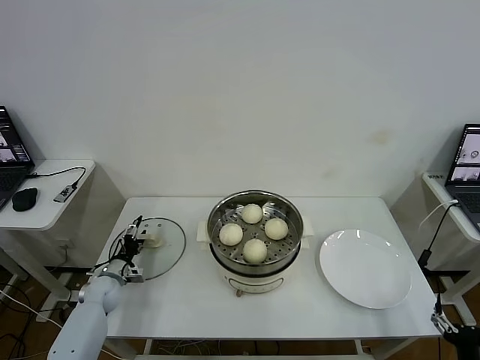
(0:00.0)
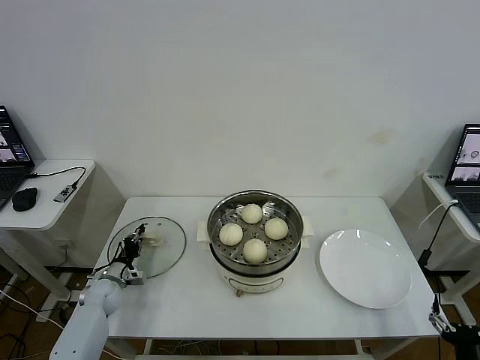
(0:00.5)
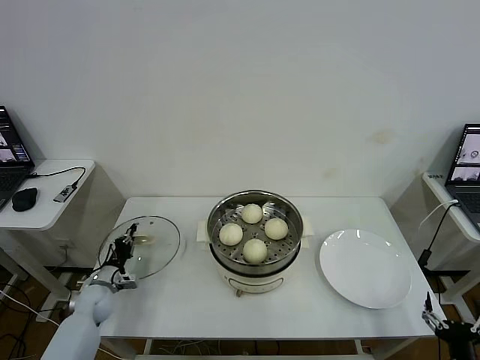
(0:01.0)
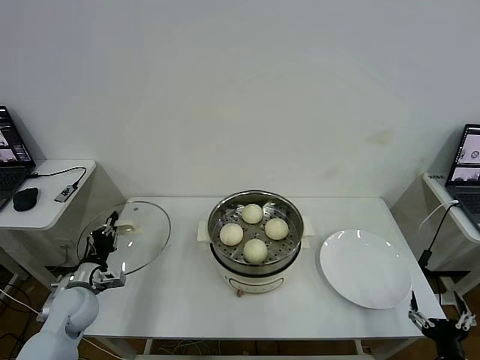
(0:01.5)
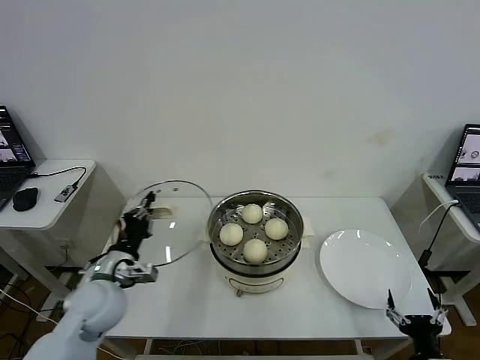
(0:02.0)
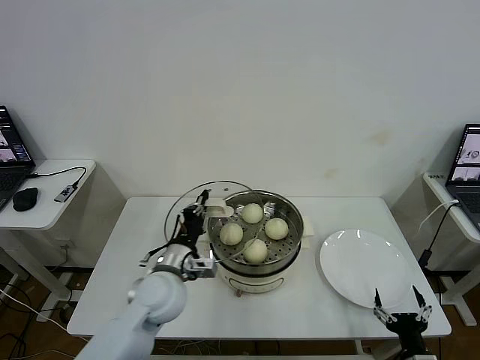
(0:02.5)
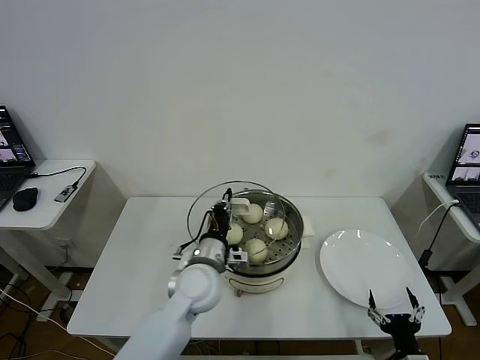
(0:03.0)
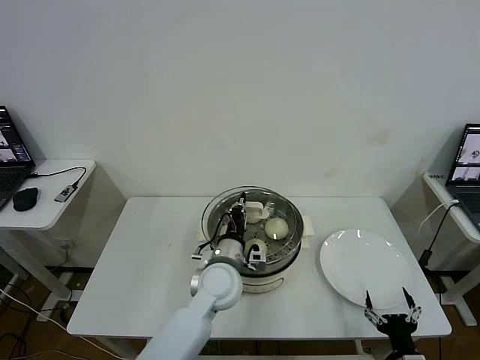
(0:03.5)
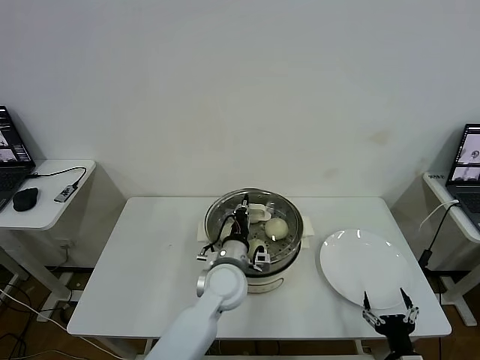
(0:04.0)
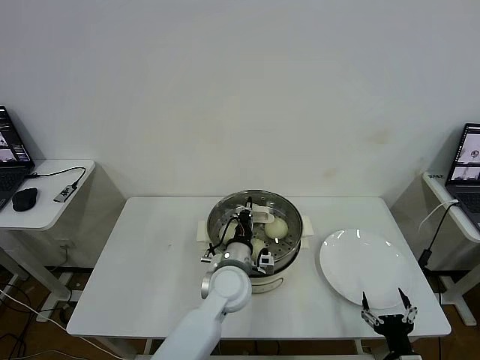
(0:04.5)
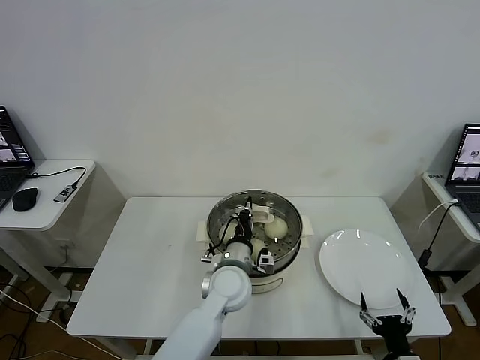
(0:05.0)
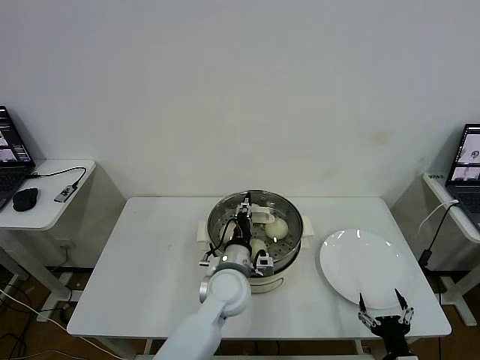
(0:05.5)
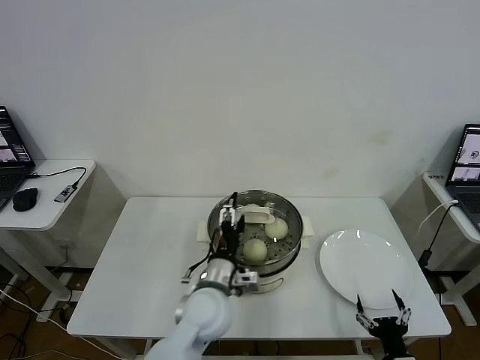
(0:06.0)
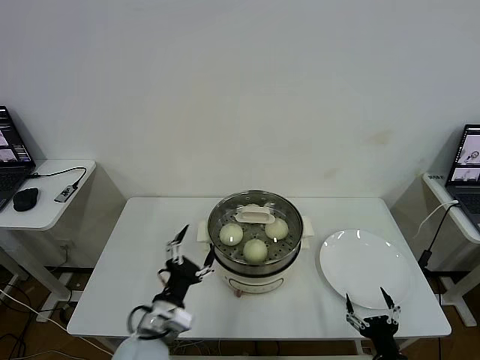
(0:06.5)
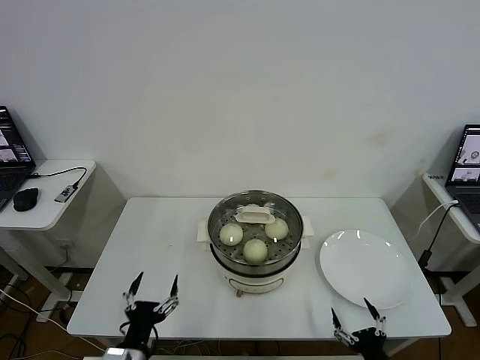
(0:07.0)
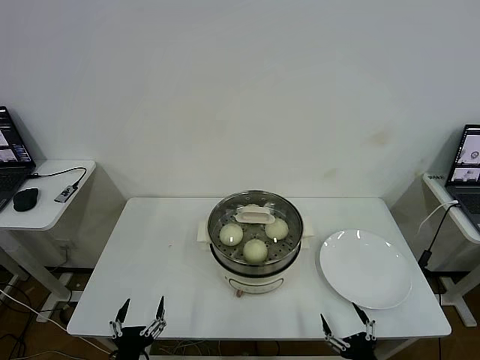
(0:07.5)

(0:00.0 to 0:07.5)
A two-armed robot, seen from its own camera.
Task of the whole recording: take steamed baozi put them in steamer then cover it.
Step, 0:01.0 - 0:05.5: Place the pot lid on the steamer with left gripper.
0:00.0 - 0:02.0: The left gripper heads upward, backward and to the right, covering approximately 25 cm, and closes its fingers.
0:02.0 - 0:04.0: The left gripper is displaced to the right by some 25 cm.
0:04.0 - 0:05.5: The left gripper opens up.
0:05.5 - 0:07.5: The left gripper shifts roughly 35 cm backward and to the left, and opens its fingers.
